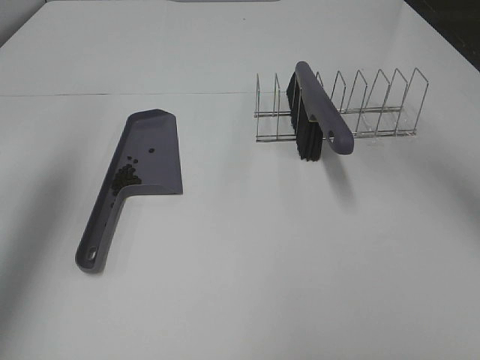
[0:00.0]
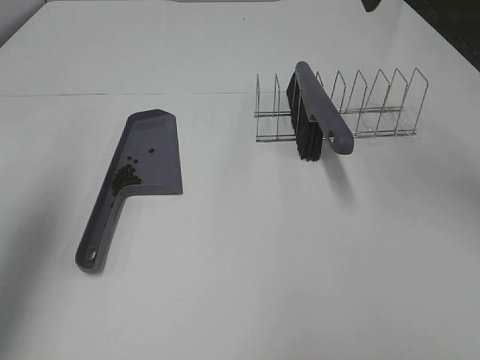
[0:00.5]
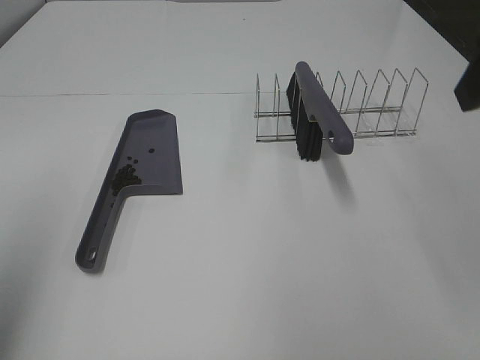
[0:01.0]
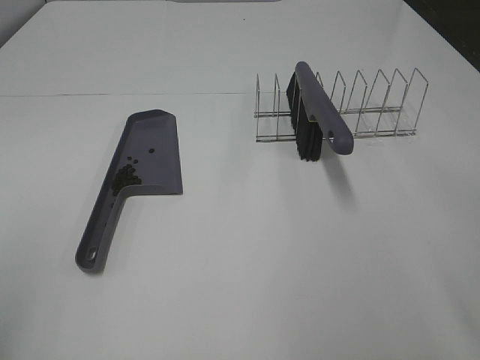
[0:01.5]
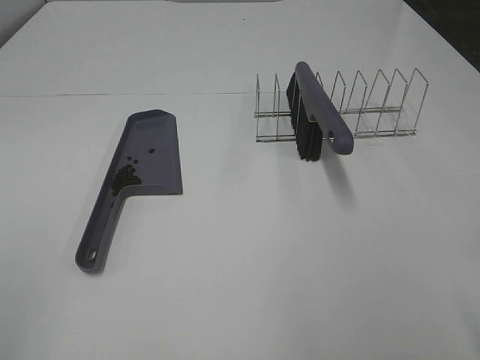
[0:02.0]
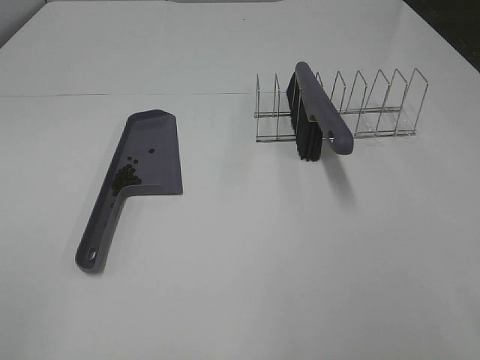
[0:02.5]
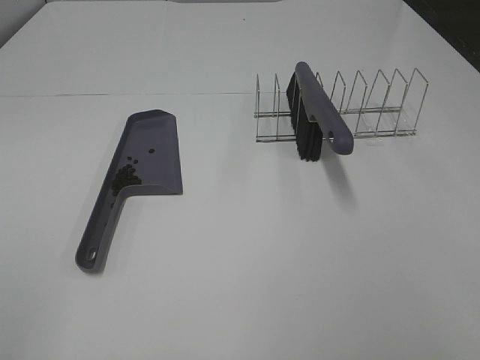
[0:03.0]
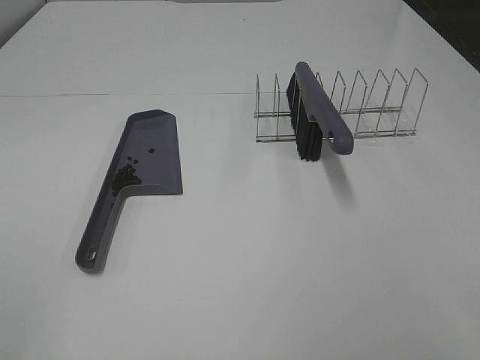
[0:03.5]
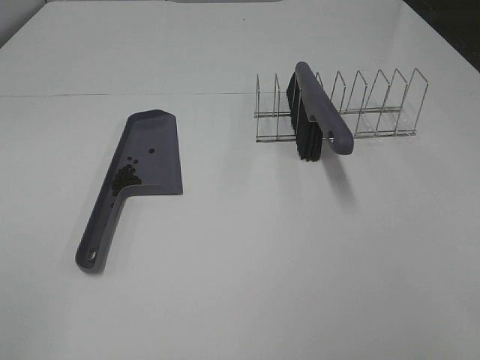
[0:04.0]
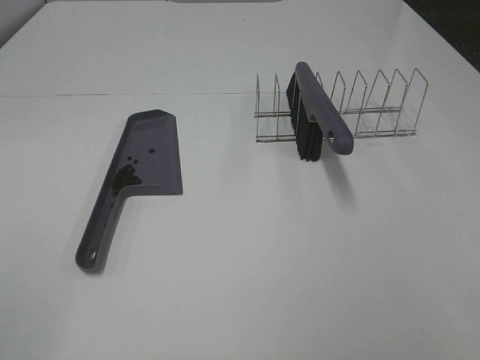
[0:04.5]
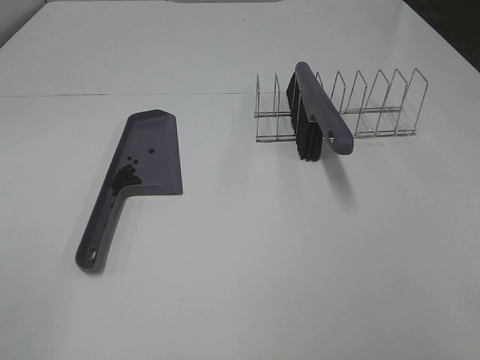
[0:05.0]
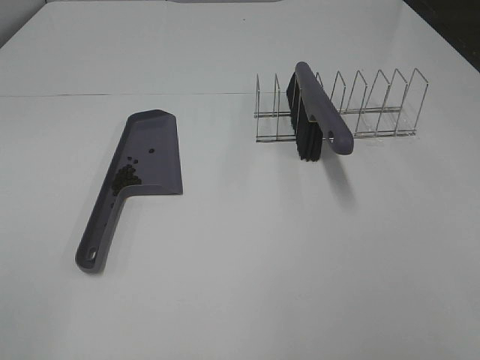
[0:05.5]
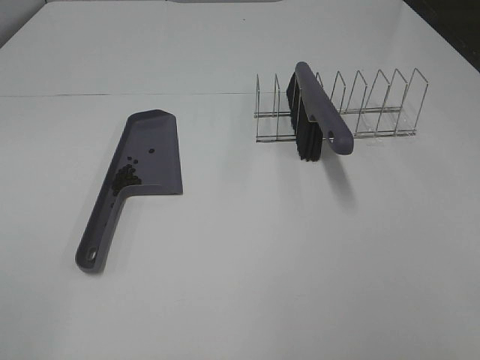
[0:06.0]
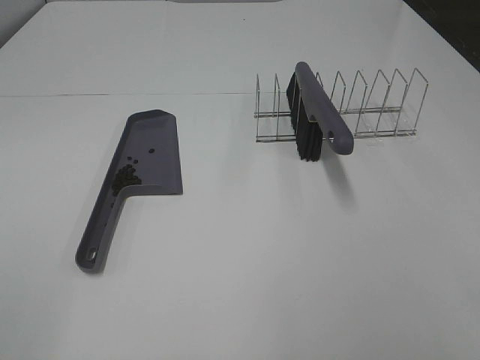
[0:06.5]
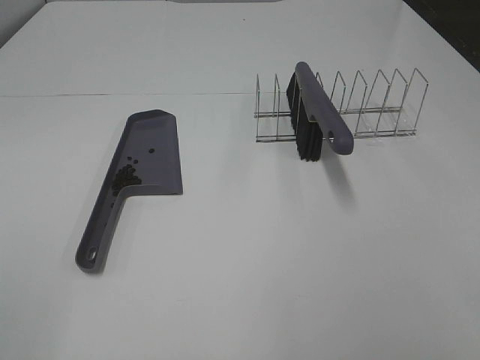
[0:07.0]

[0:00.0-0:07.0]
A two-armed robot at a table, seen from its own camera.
Task of the whole recording: Sweep Coffee Bean.
0.0 to 2.0 s: The grippers both shift backward by approximately 30 cm.
3.5 to 5.0 s: Both grippers stay put.

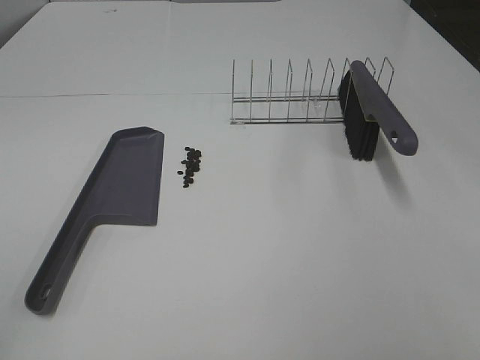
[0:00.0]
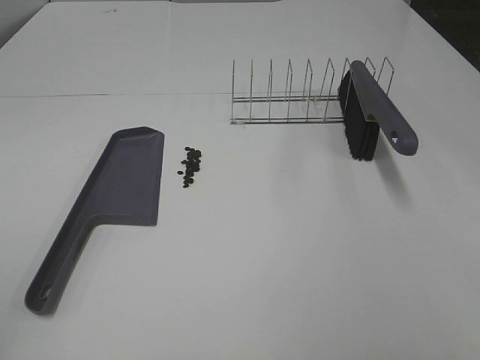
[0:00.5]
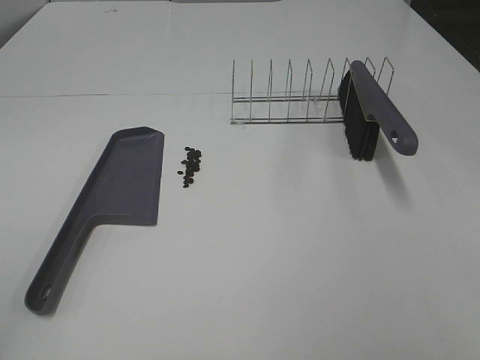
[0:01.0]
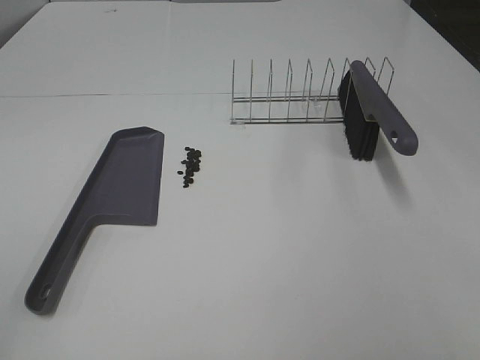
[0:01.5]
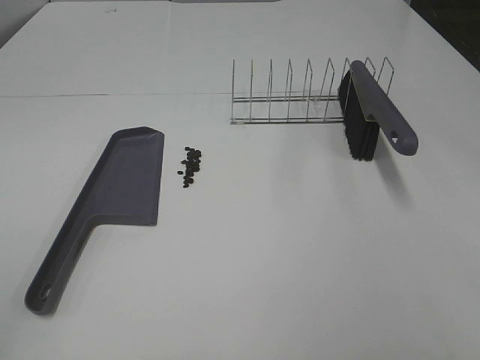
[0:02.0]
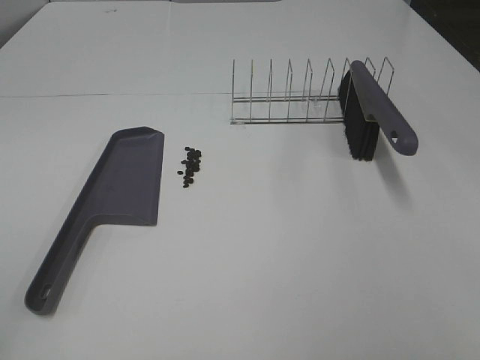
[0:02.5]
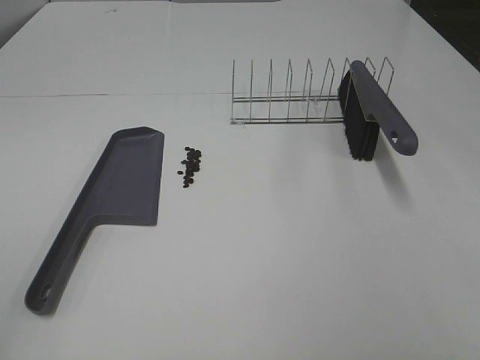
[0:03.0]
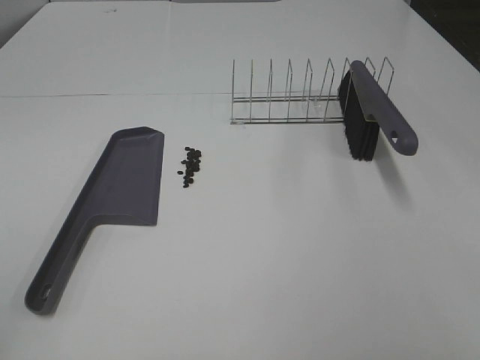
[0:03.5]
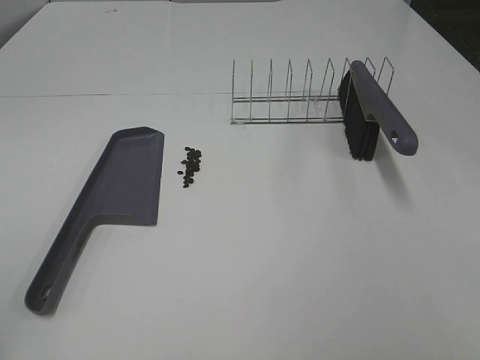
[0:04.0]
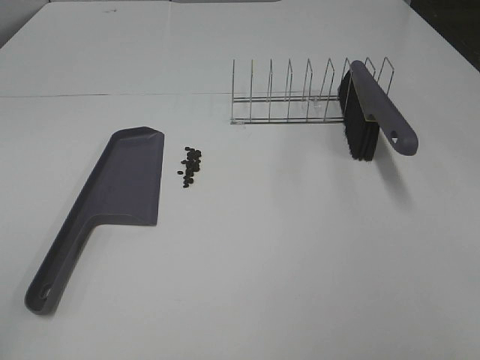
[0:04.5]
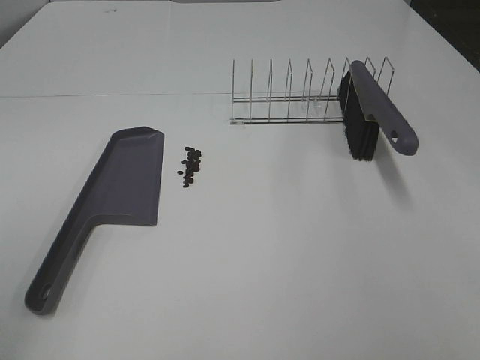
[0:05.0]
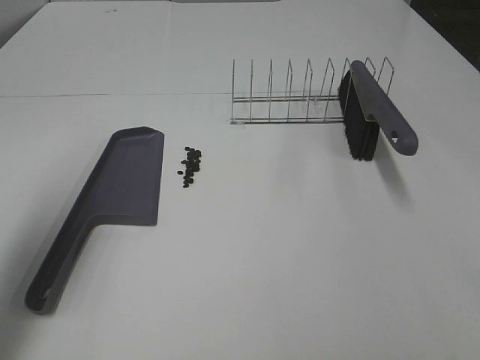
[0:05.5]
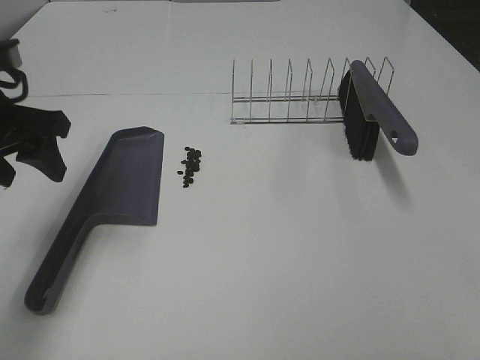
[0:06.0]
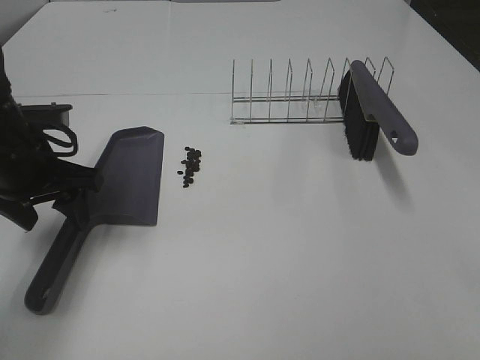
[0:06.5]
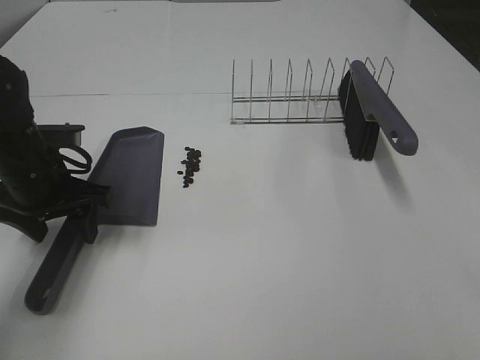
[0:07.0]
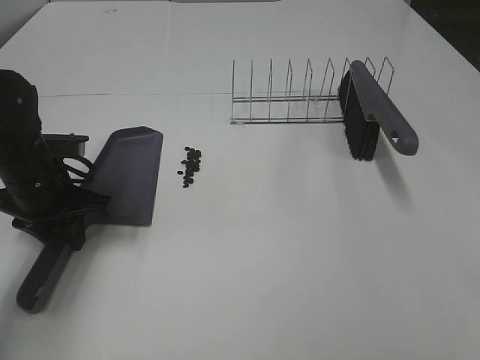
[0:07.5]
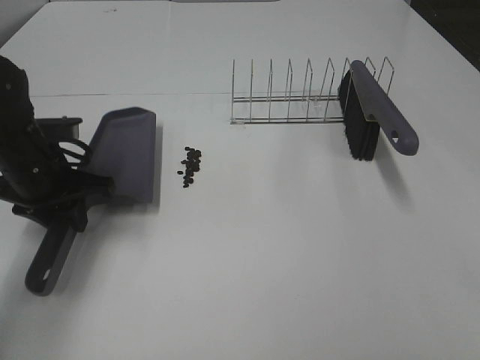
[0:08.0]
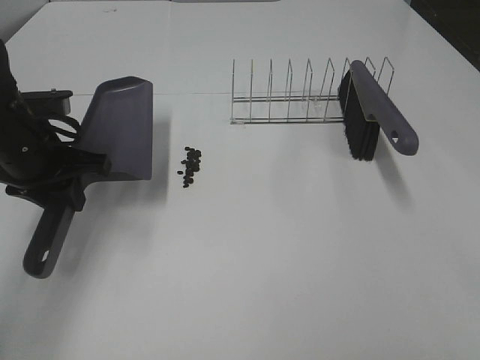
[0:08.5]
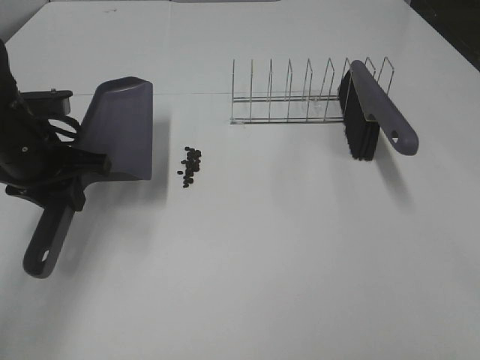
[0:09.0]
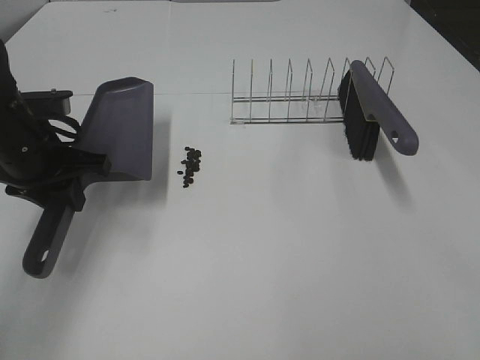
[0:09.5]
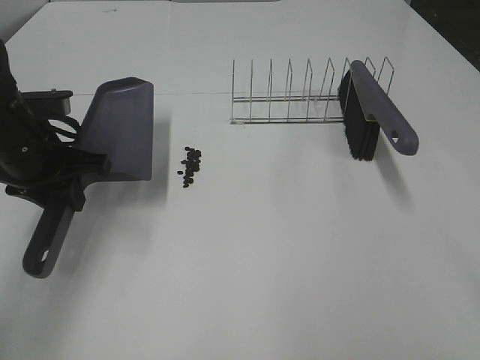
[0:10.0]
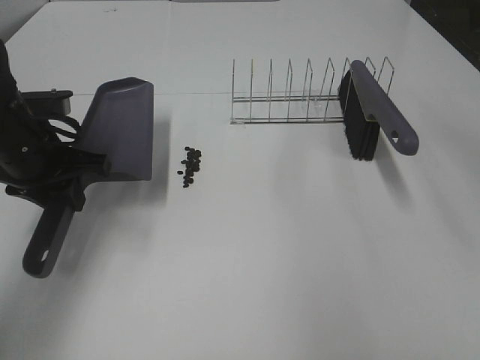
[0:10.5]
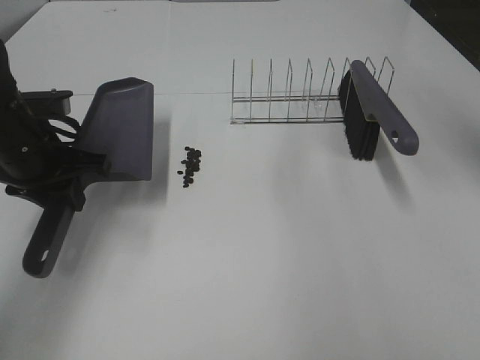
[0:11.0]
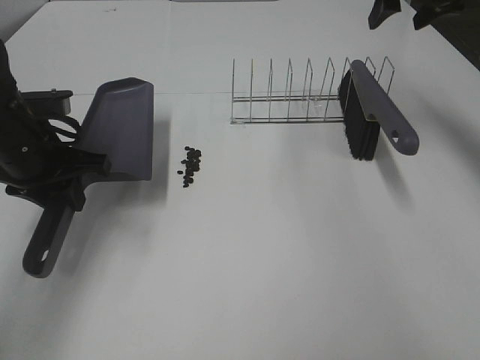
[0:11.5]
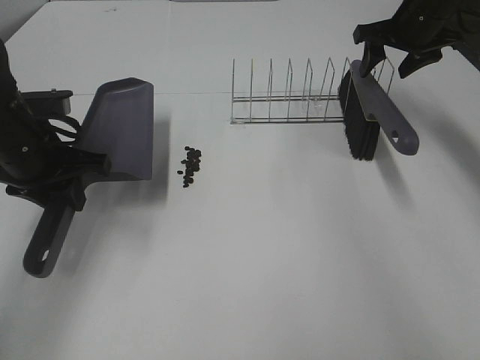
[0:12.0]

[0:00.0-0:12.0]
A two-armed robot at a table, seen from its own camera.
Task of the whole recording: Sweep Coffee Bean.
Step, 0.0 to 7.5 s: Left hand: grab the dustpan.
0.0 to 4.0 s: The two grippers keep their place.
4.0 to 6.0 s: The left gripper moves forward, some 30 cm.
6.0 to 8.0 s: The left gripper is displaced downward by roughly 10 cm, and closes.
10.0 to 12.0 s: The right gripper is displaced forward by roughly 50 cm, and closes up.

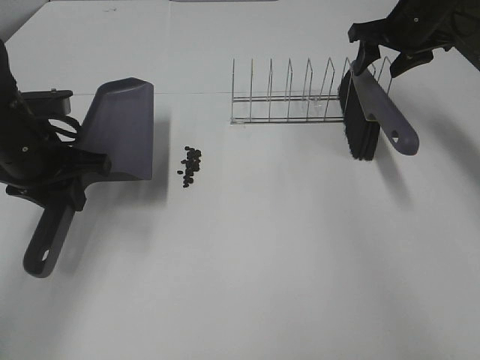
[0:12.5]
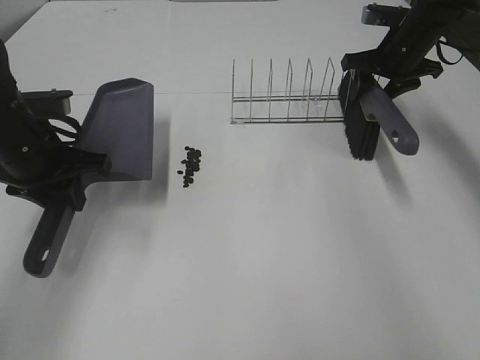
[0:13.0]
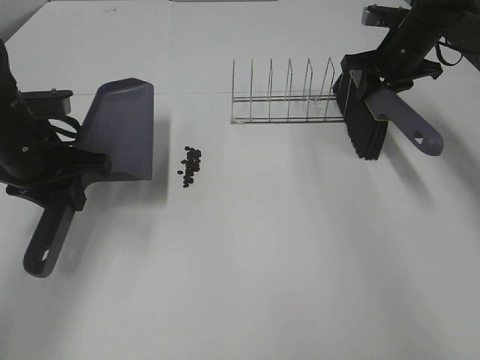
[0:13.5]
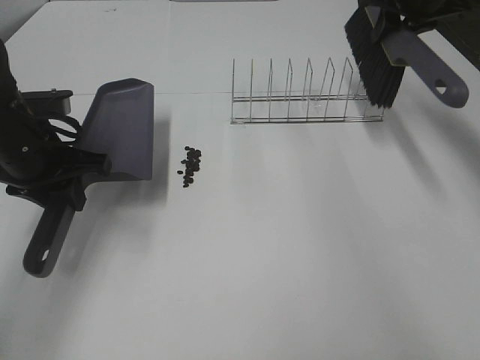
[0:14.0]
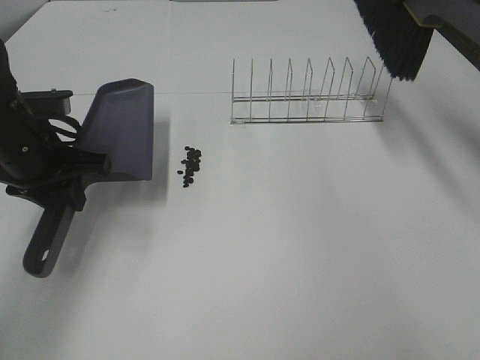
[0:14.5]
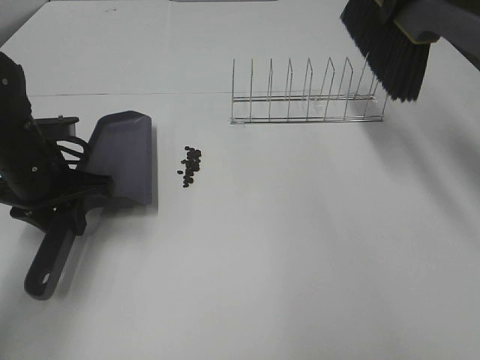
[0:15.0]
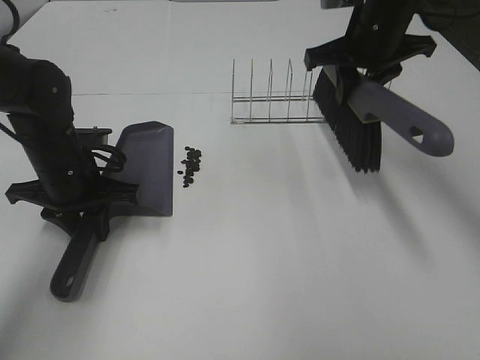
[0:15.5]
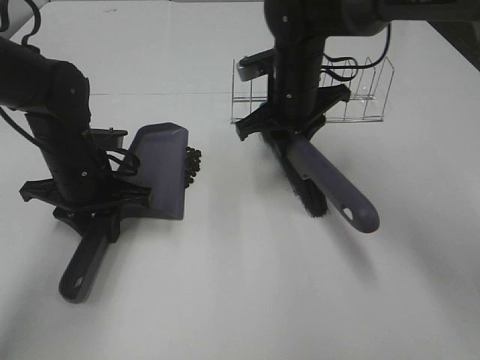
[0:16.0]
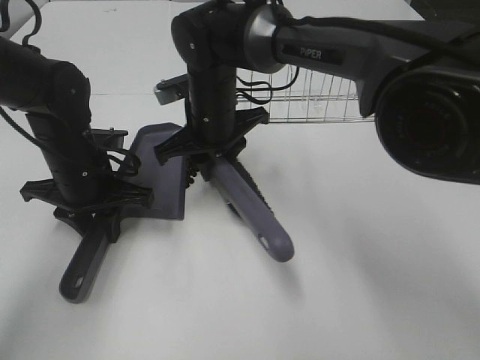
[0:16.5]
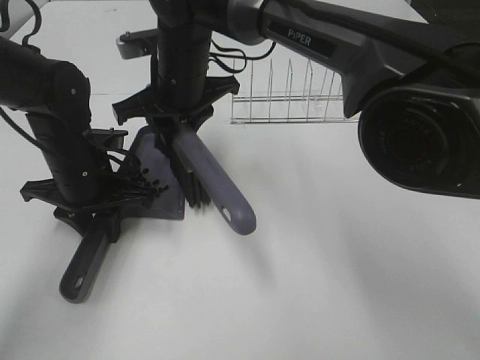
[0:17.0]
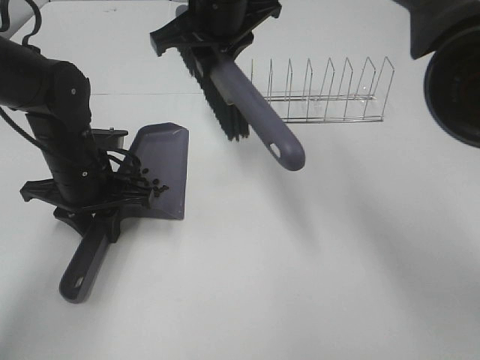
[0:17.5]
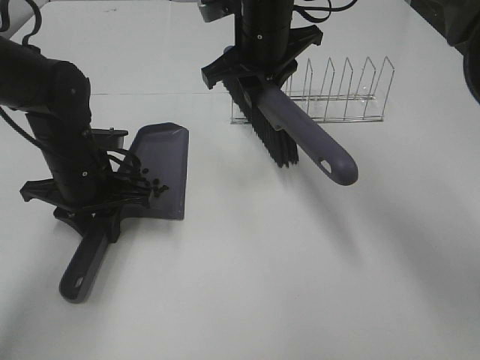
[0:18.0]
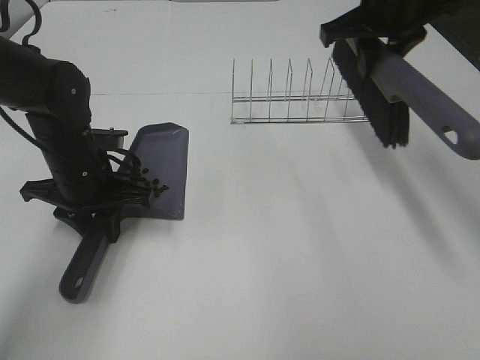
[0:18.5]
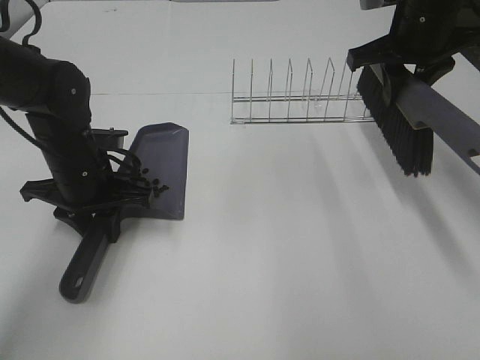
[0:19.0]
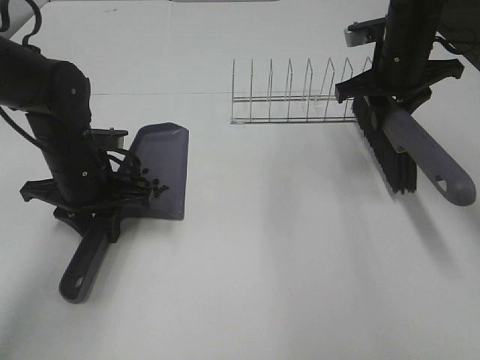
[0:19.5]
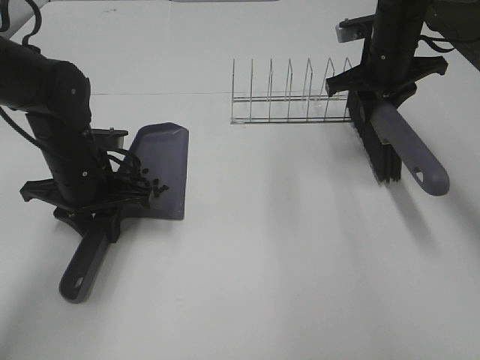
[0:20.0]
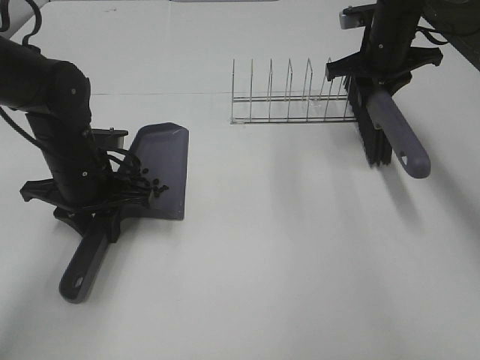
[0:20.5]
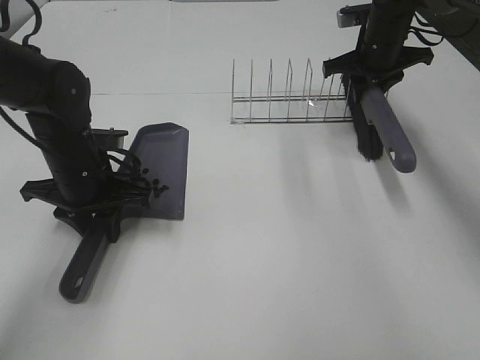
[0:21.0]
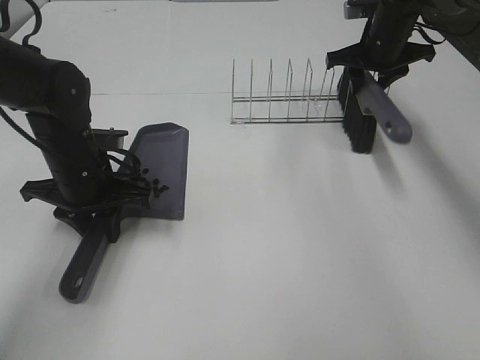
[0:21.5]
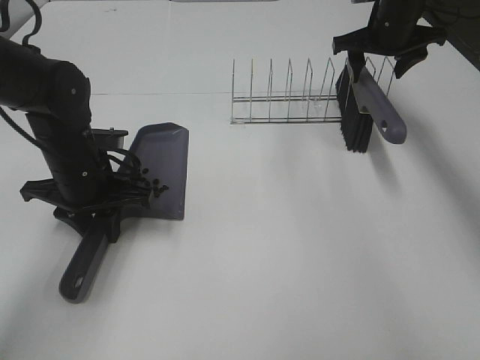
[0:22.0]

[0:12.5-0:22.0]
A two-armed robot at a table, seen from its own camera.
Task of the whole recording: Sweep Coffee Bean.
Step, 13.5 to 17.0 s: Right hand:sweep the coffee beans into the dustpan.
Step, 17.5 to 21.5 s: Right hand:place the broom on the rack.
12.5 to 14.5 s: The right gripper goes approximately 15 cm upward, and closes up.
14.5 to 16.5 s: The right gripper is displaced to the left and downward by approximately 35 cm; the left gripper moves downward, about 5 cm.
16.5 to 18.0 s: The right gripper moves upward and to the right, approximately 10 cm.
18.0 to 20.0 s: The right gripper shifts about 20 cm to the right.
20.0 to 22.0 s: The right gripper shifts about 5 cm forward, and opens up.
